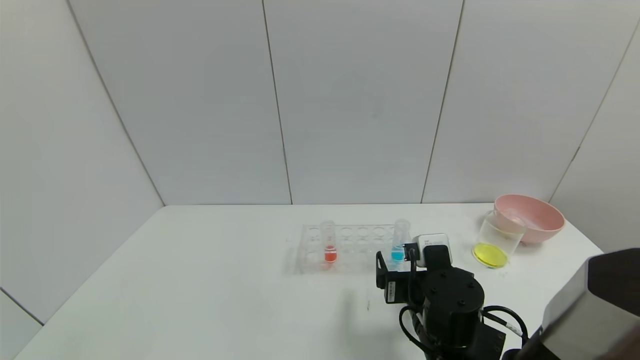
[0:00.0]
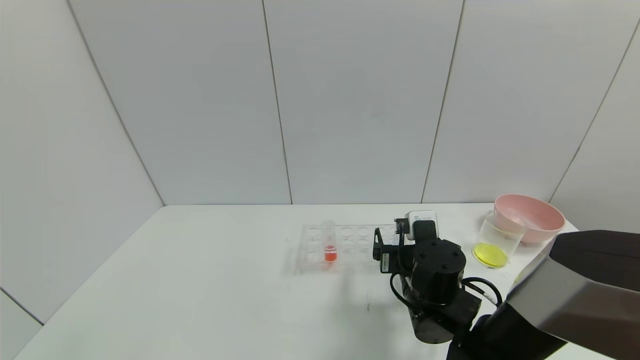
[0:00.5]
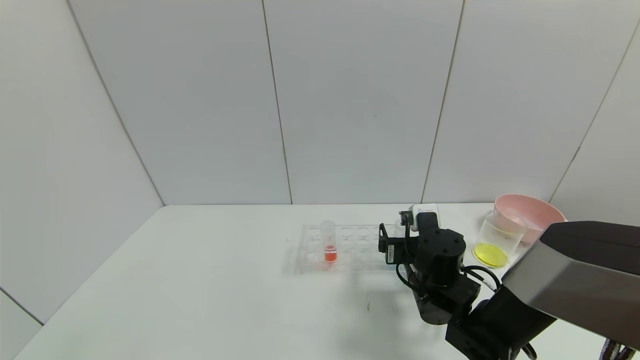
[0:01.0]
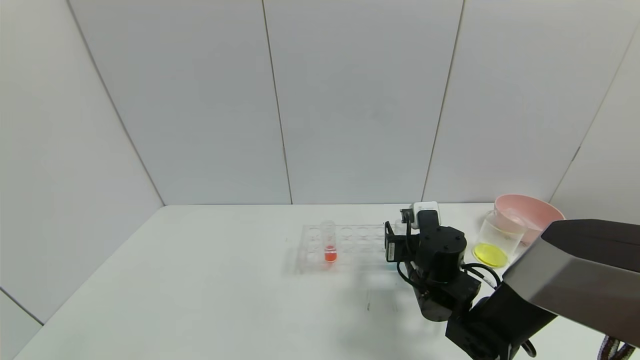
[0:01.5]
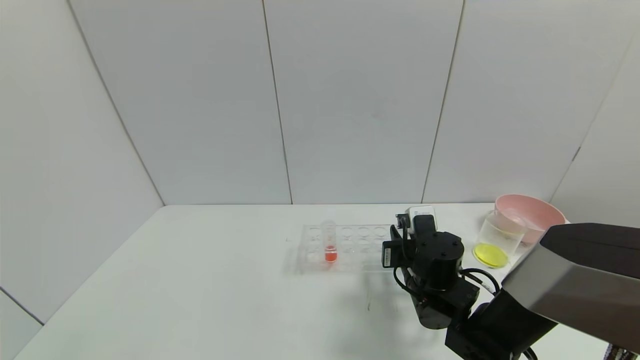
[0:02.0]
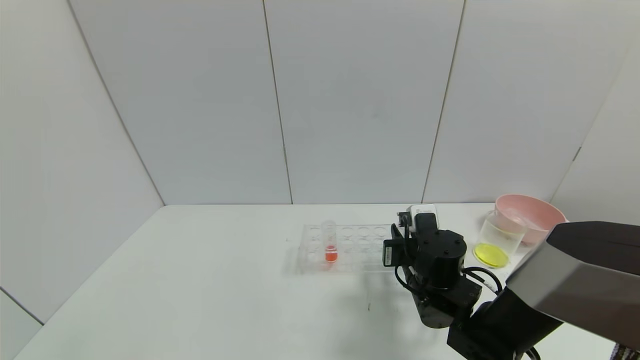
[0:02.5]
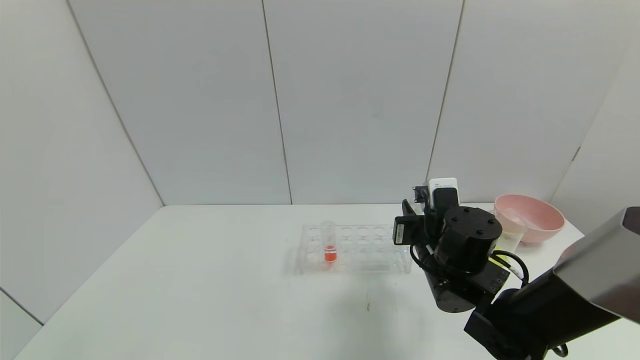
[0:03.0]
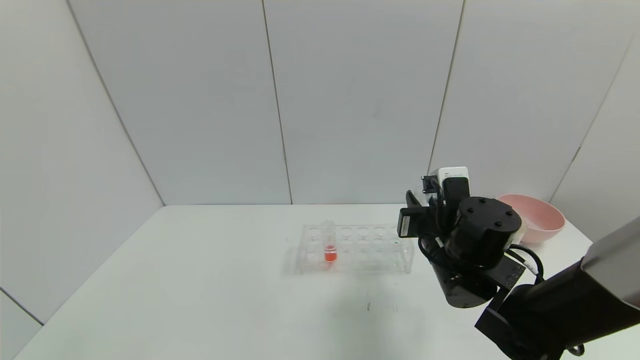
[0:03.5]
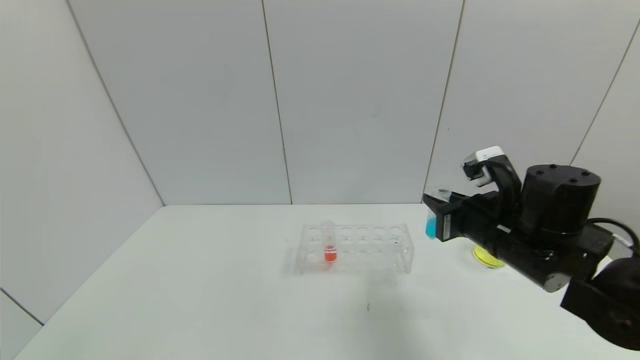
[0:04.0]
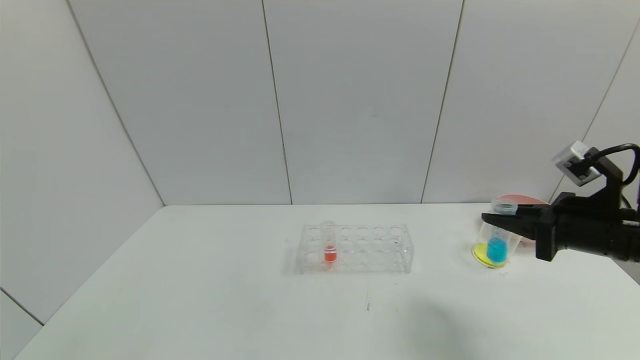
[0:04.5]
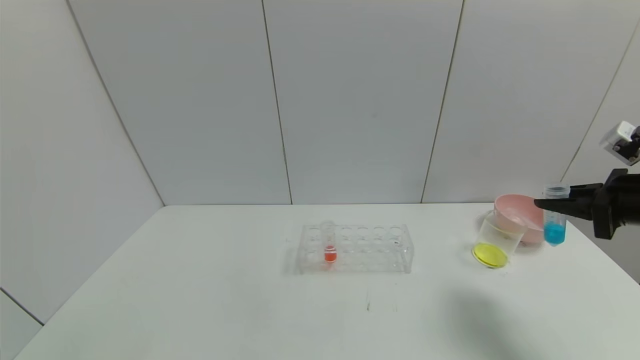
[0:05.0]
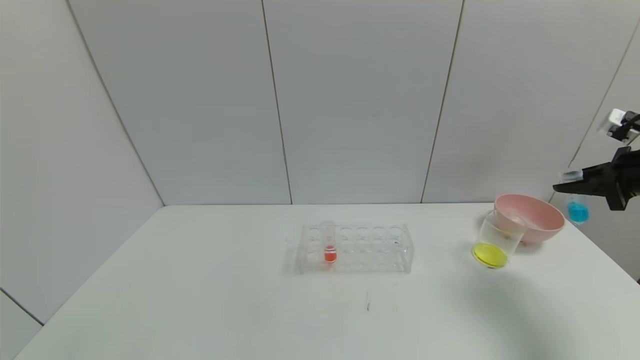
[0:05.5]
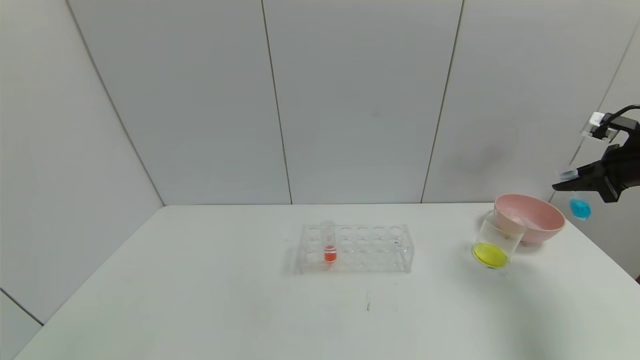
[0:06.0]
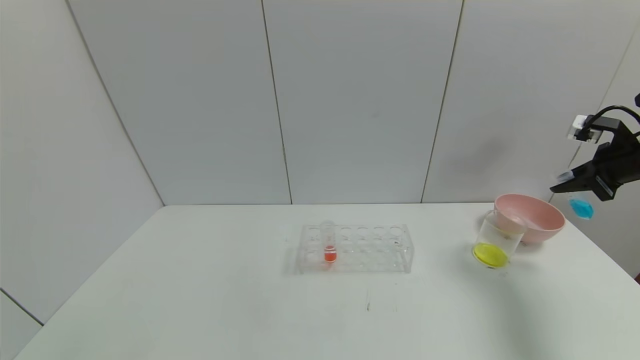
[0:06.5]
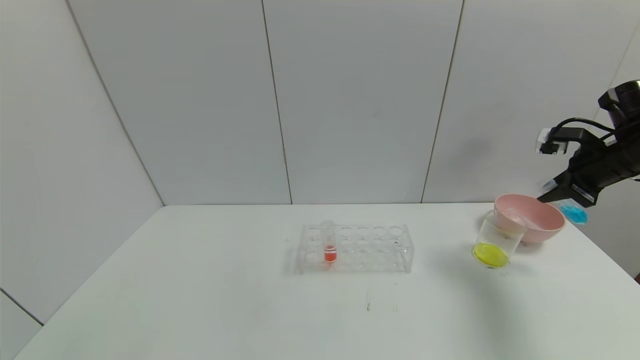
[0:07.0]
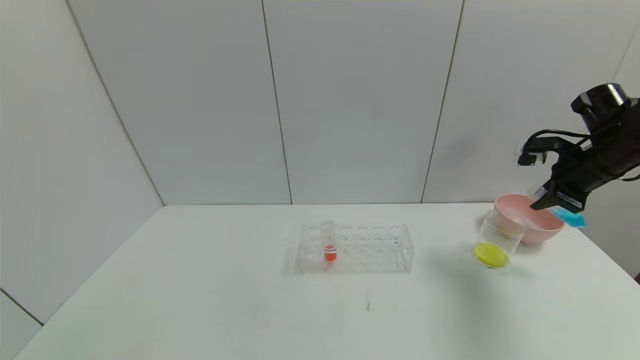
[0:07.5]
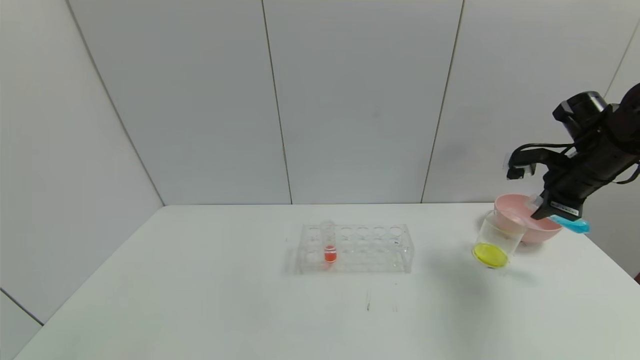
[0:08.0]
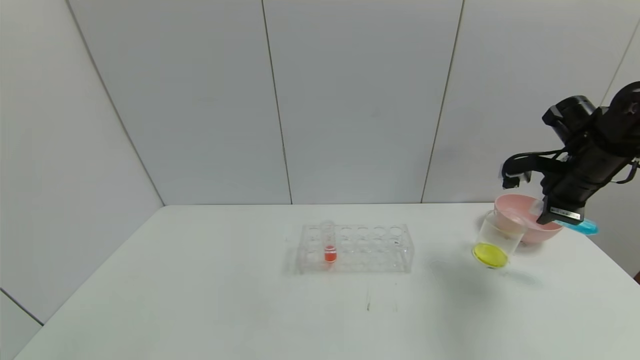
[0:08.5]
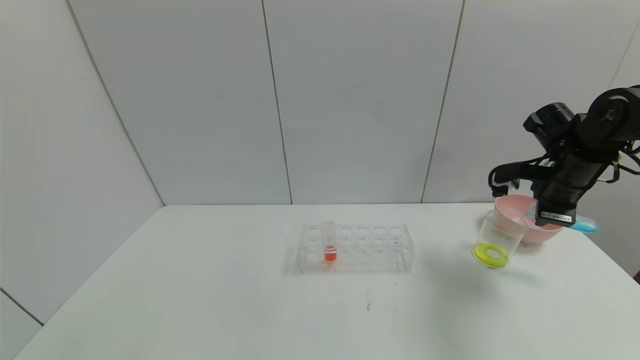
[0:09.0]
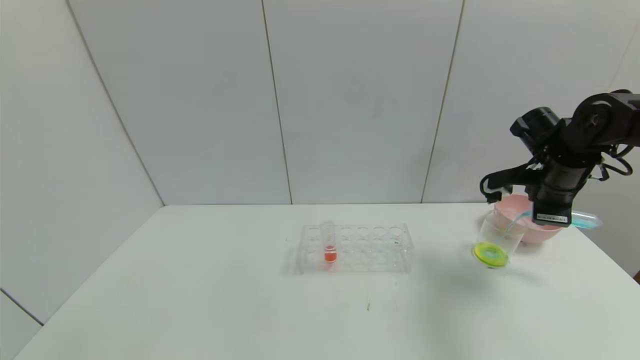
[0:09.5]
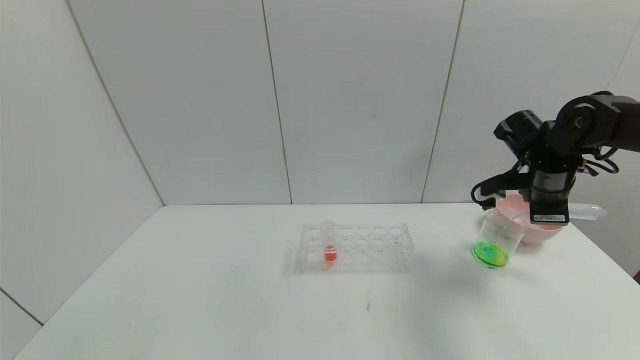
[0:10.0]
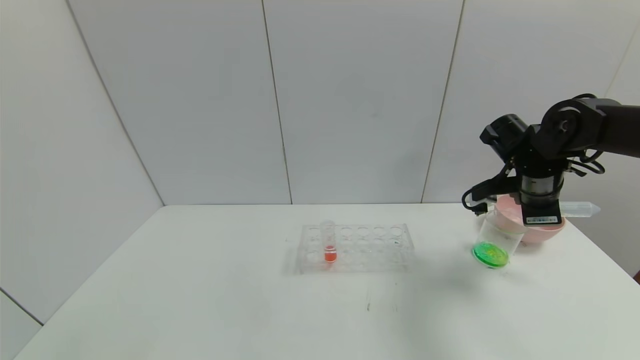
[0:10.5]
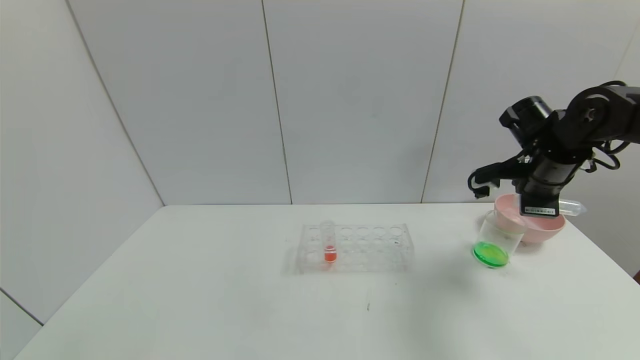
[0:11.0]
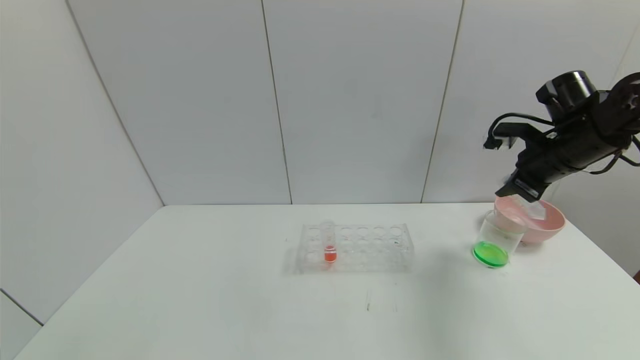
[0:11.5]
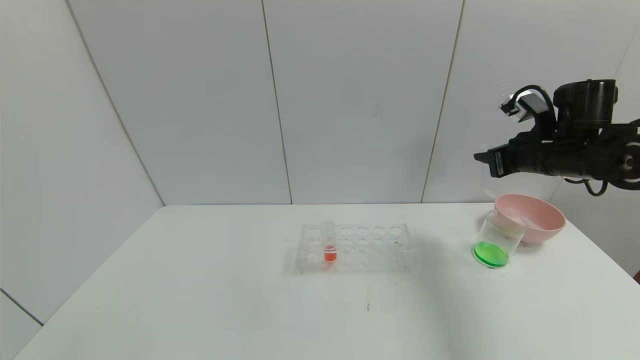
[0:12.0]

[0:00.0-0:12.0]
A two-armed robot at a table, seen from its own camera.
Task of the whole recording: pick up the test tube with yellow pigment and the test tube with blue pigment by grippers and pour them into the beaker.
Step, 0:02.0 to 0:10.5: Pour the blue reagent into the graduated cylinder with the right gripper.
0:00.0 to 0:02.0: The right gripper is displaced forward by approximately 5 cm, and closes up.
0:02.0 to 0:04.0: The right gripper goes some 15 cm upward and to the right.
0:04.0 to 0:06.0: The right gripper is displaced to the right by approximately 25 cm.
0:06.0 to 0:08.0: The right gripper shifts about 10 cm to the left.
0:08.0 to 0:10.0: The right gripper shifts about 5 cm to the left.

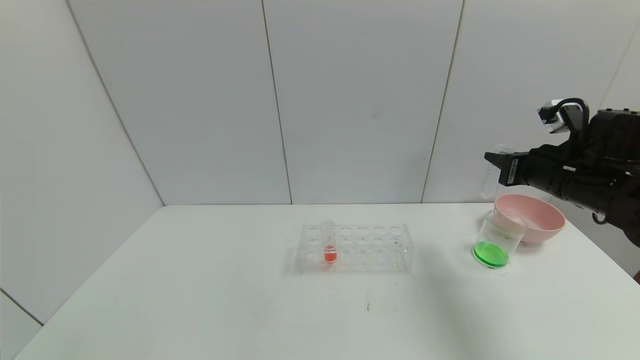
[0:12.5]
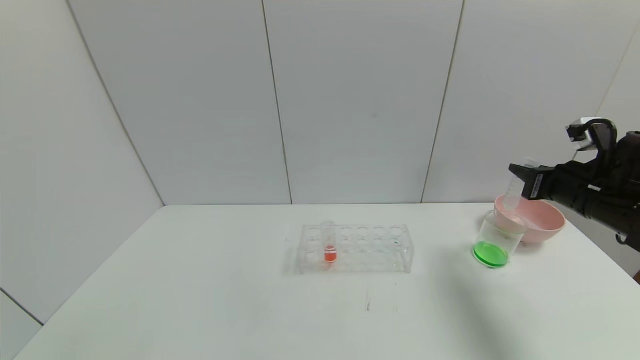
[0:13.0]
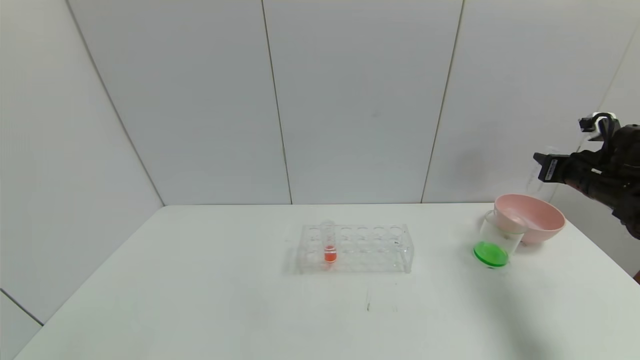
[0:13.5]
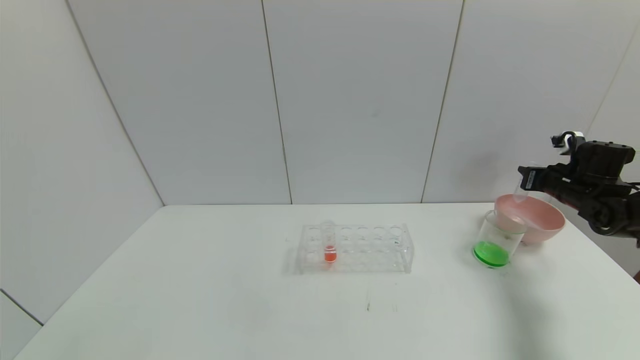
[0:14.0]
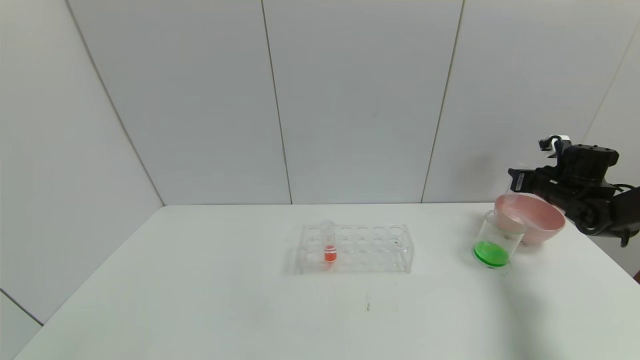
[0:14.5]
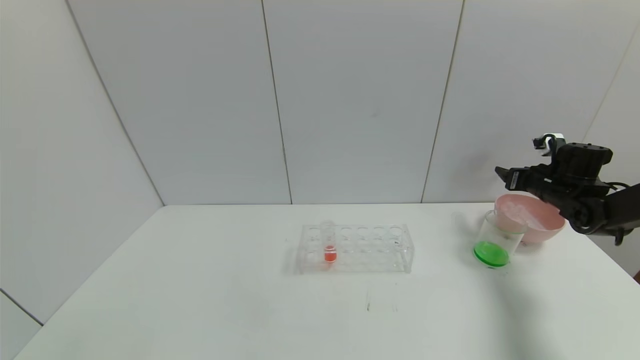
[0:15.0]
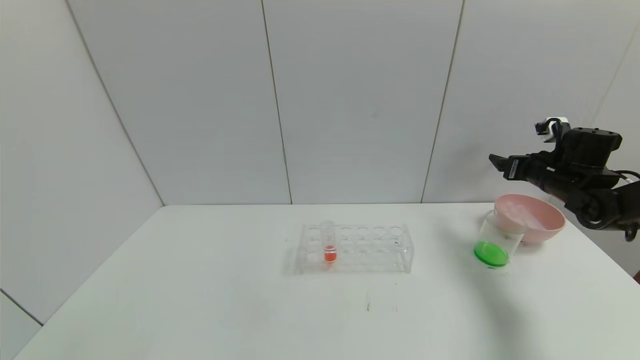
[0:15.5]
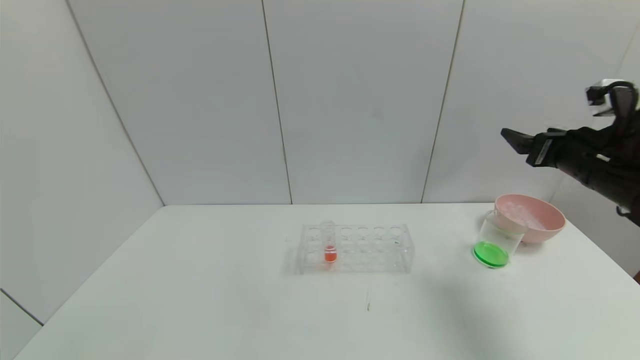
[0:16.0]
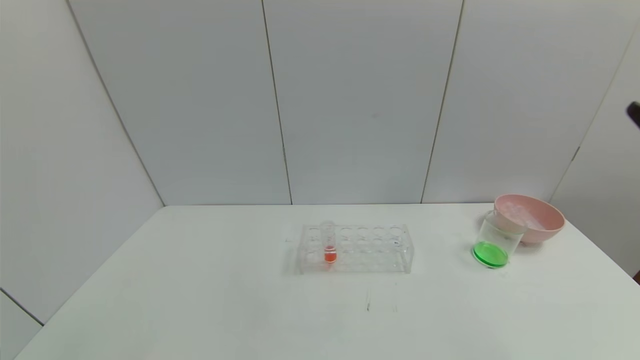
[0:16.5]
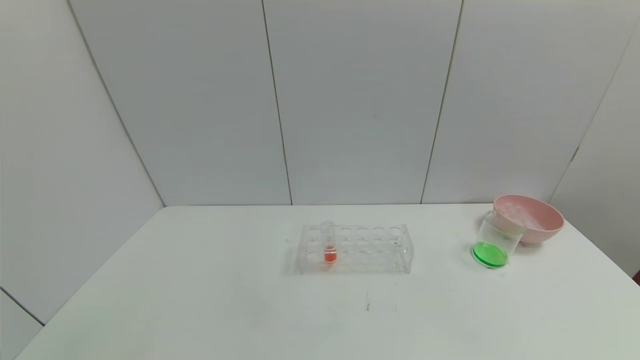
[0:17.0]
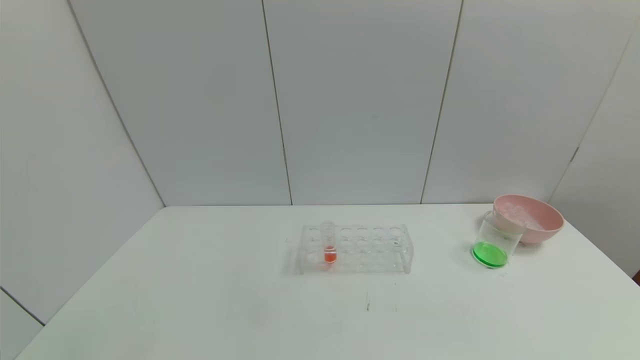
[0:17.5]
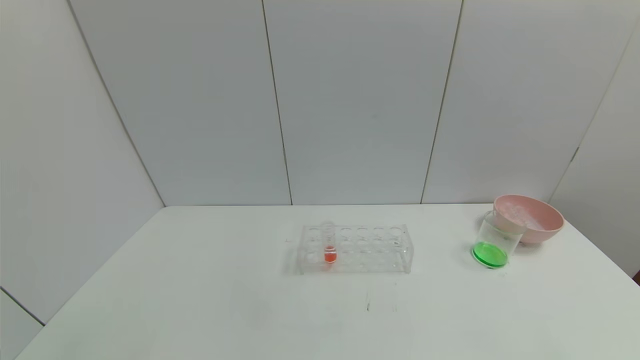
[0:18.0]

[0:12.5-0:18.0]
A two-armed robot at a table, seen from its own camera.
Task of the whole recording: pick up the test tube with yellow pigment and the test tube with blue pigment by grippers and pour them into the beaker.
Step, 0:12.5 to 0:15.0: Place the test tube into the bowl with the right gripper.
0:12.5 to 0:14.5: The right gripper moves forward, to the right and downward, about 20 cm.
0:14.5 to 0:16.0: The right gripper heads backward, upward and to the left, covering approximately 20 cm, and opens.
0:16.0 to 0:18.0: The right gripper is displaced backward and downward by about 40 cm.
